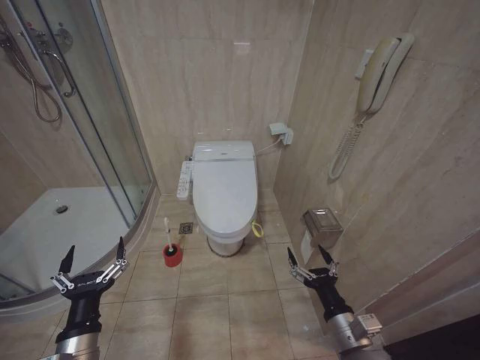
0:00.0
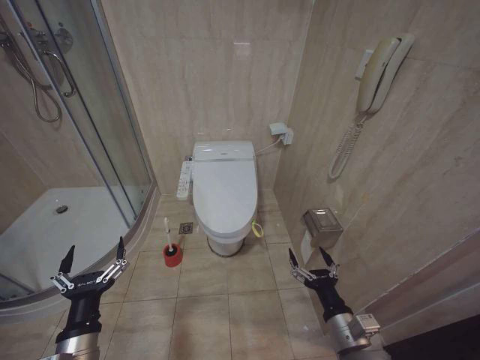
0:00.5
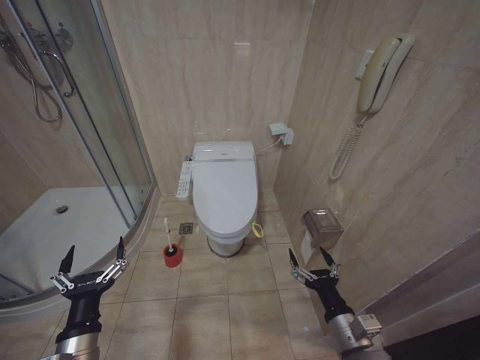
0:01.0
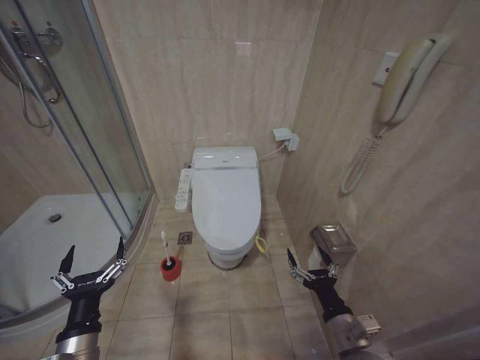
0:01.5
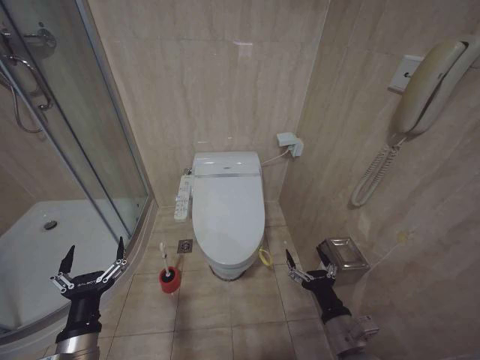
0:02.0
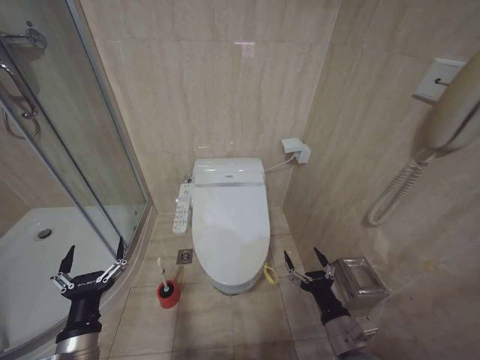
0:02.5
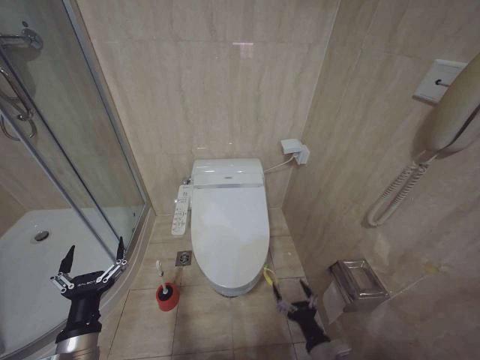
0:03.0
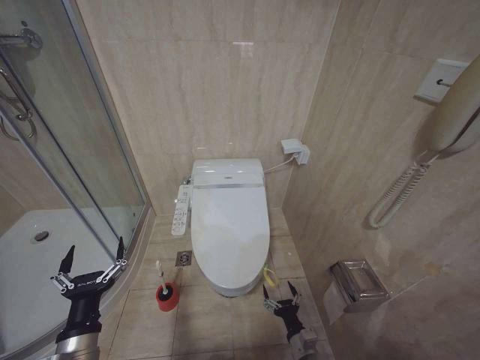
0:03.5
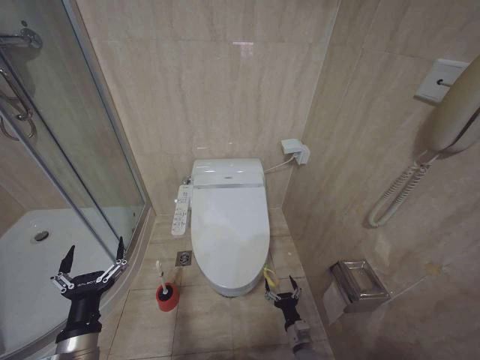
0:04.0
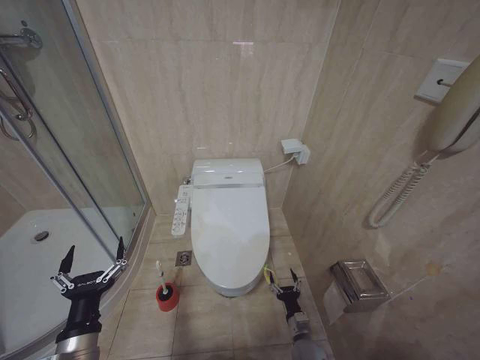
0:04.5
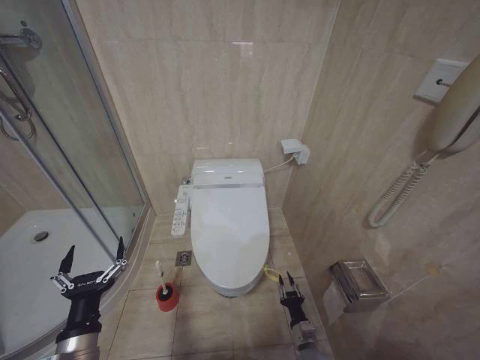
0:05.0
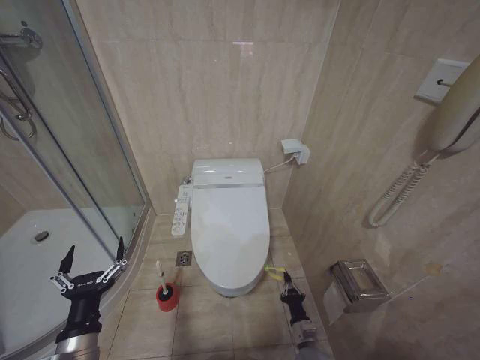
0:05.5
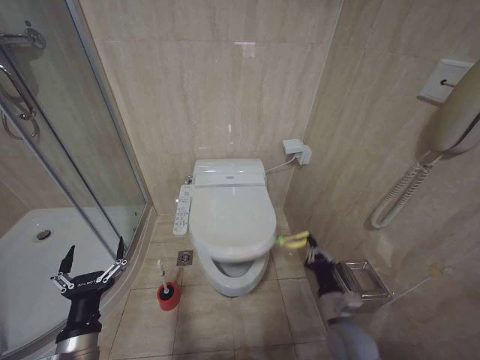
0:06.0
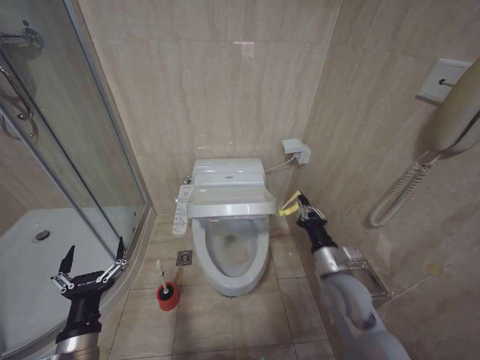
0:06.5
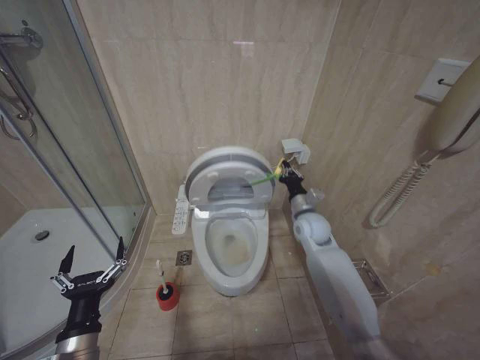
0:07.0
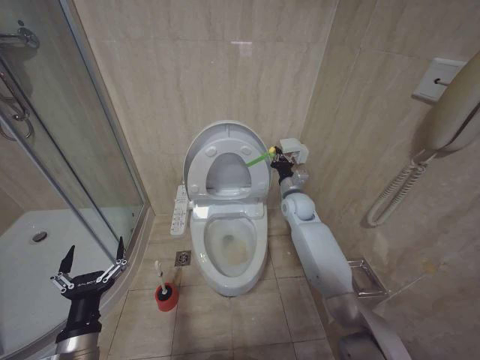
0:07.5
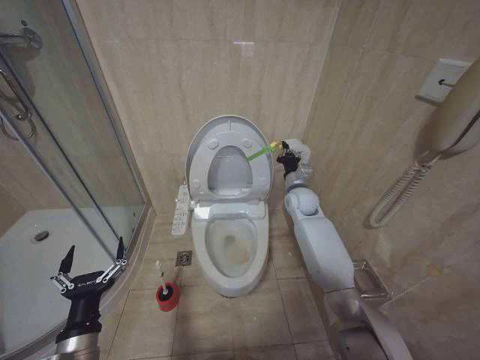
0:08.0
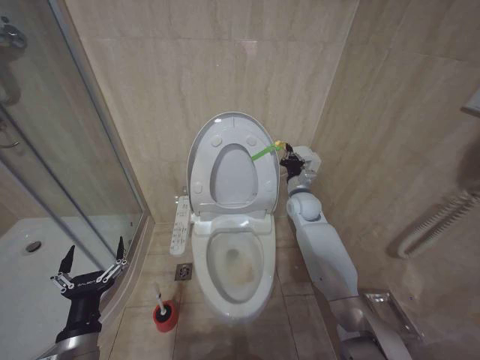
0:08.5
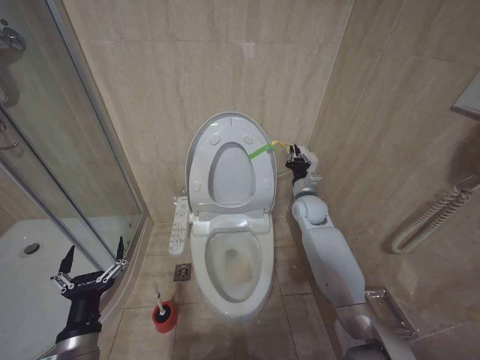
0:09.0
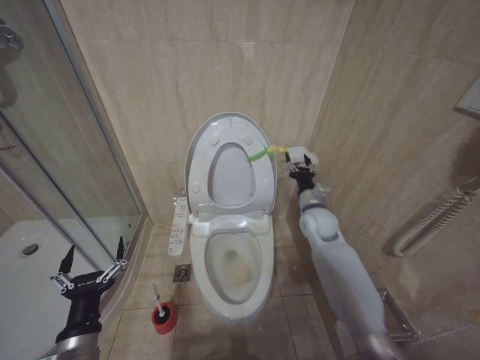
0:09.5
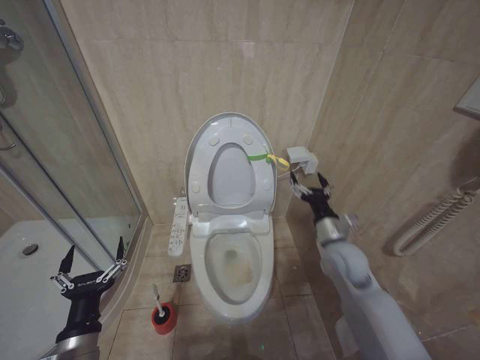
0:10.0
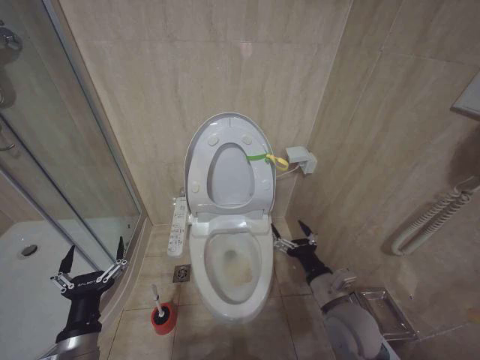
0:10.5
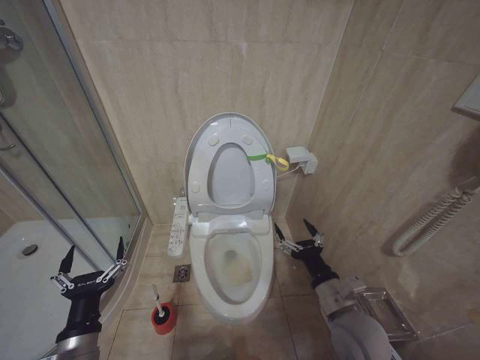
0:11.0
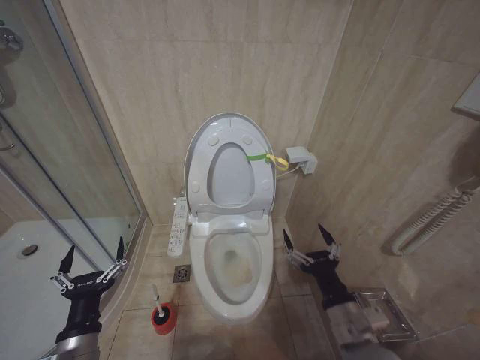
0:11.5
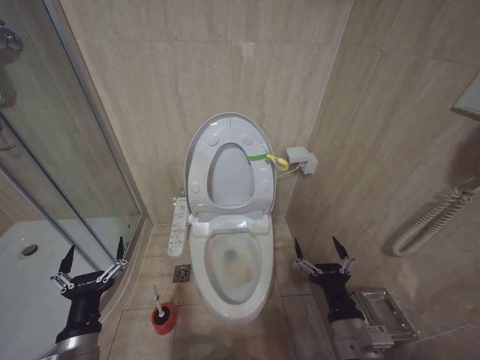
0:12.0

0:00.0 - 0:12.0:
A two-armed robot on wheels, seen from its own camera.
Task of the whole recording: Open the toilet lid, clean the toilet bowl with a toilet brush, close the toilet lid, and flush.
0:02.0 - 0:04.0: The right gripper shifts about 25 cm downward.
0:04.0 - 0:06.0: The right gripper moves upward, about 15 cm, and closes up.
0:06.0 - 0:08.0: The right gripper shifts roughly 40 cm forward and upward.
0:08.0 - 0:10.0: The right gripper goes about 15 cm backward, and opens.
0:10.0 - 0:12.0: The right gripper travels backward by about 25 cm.

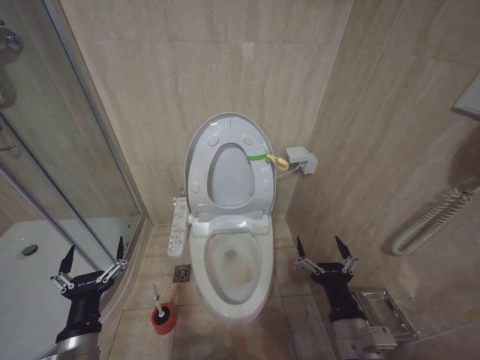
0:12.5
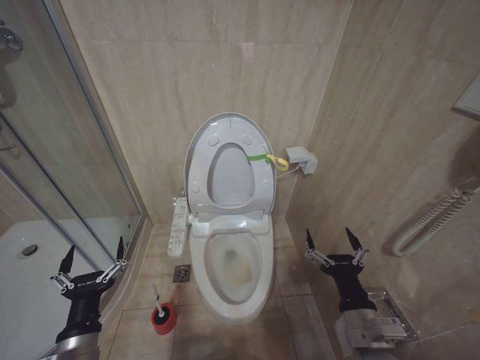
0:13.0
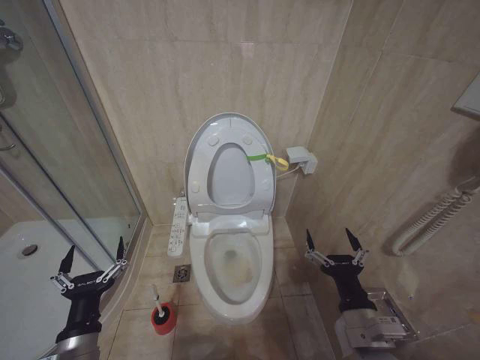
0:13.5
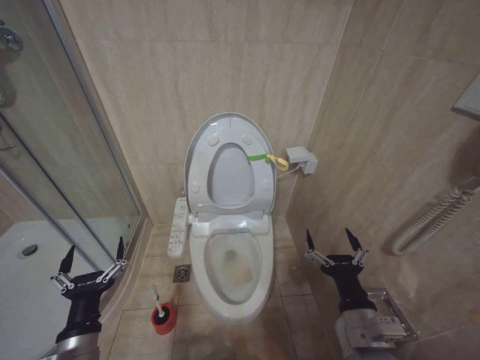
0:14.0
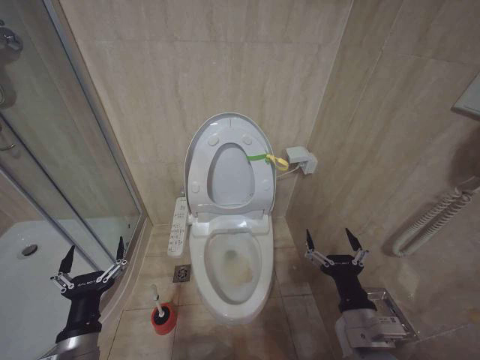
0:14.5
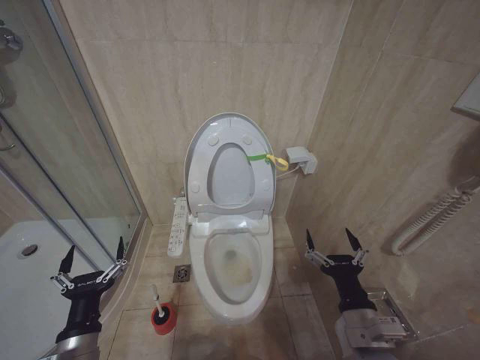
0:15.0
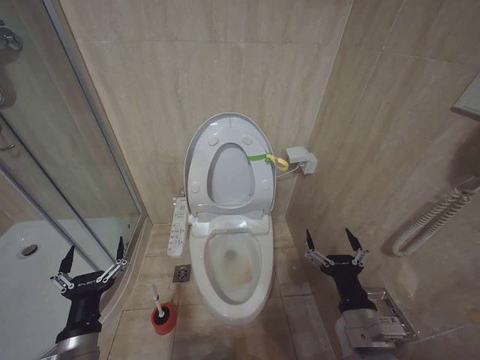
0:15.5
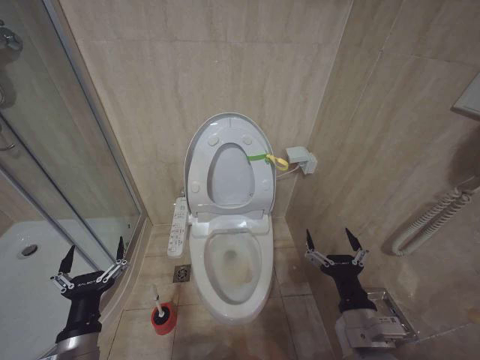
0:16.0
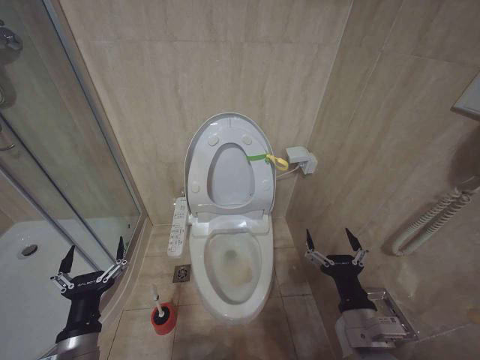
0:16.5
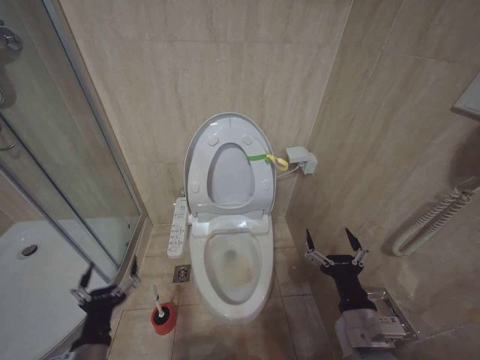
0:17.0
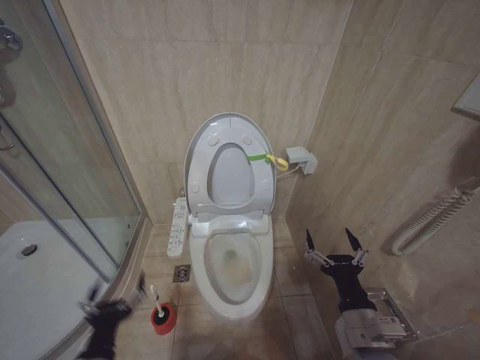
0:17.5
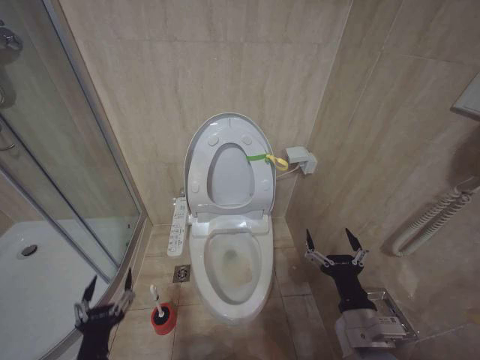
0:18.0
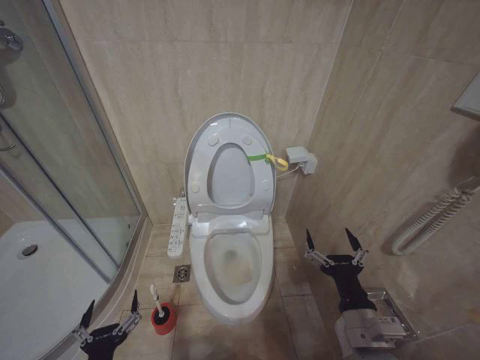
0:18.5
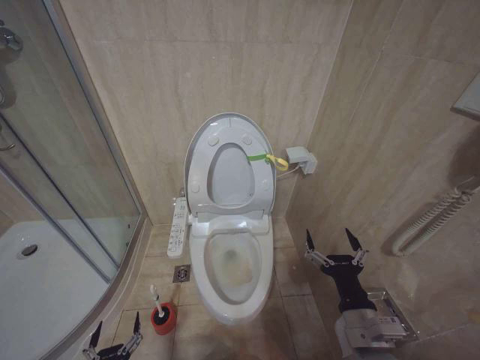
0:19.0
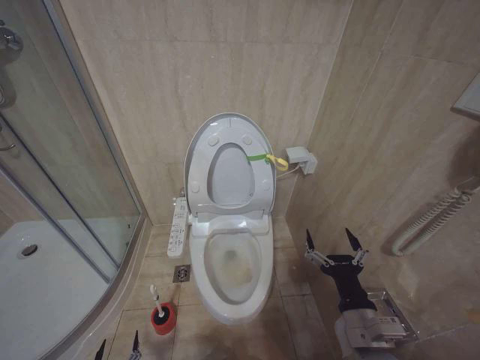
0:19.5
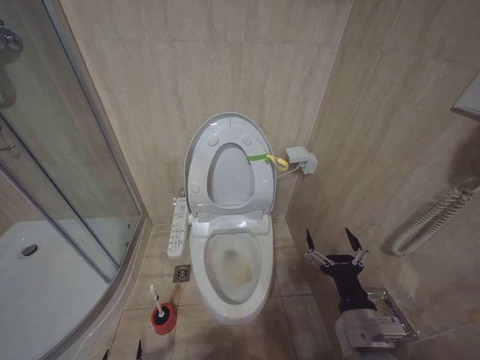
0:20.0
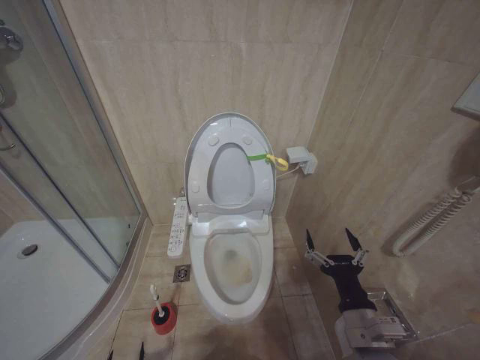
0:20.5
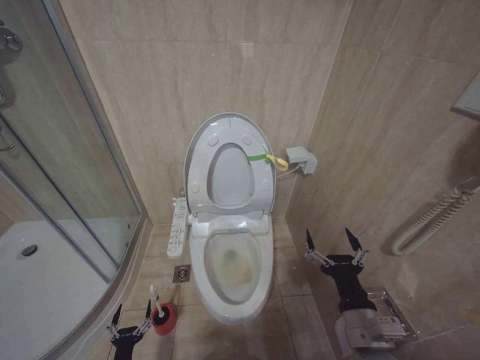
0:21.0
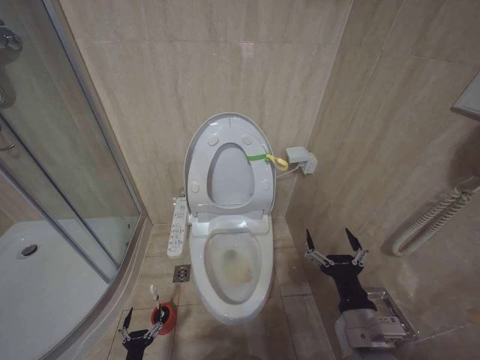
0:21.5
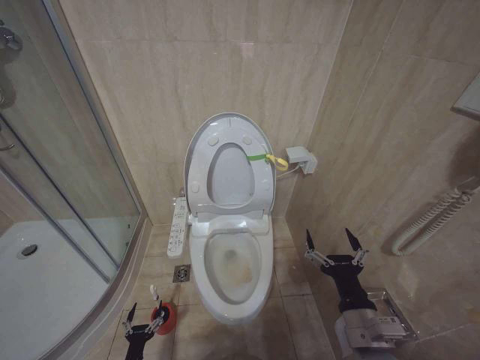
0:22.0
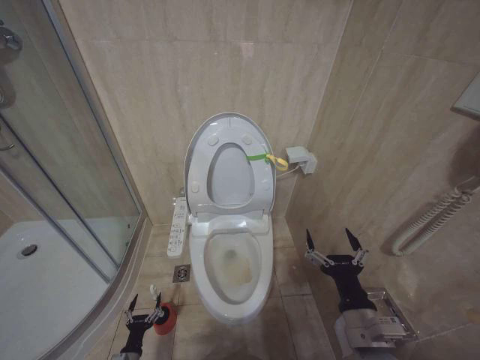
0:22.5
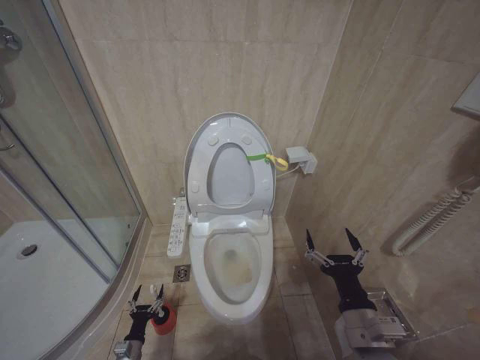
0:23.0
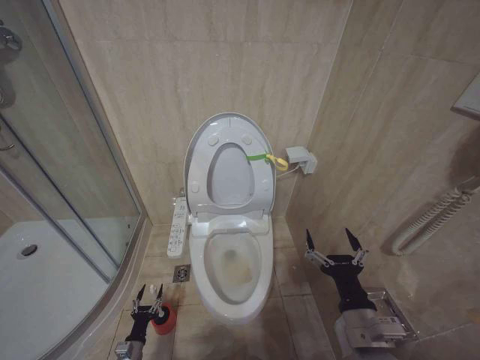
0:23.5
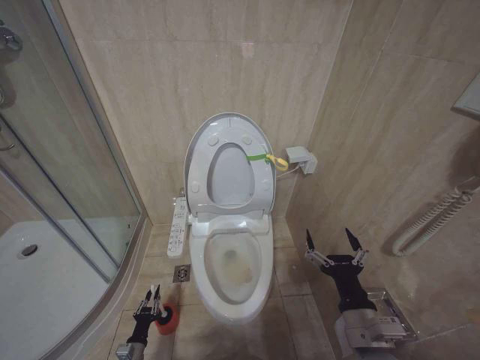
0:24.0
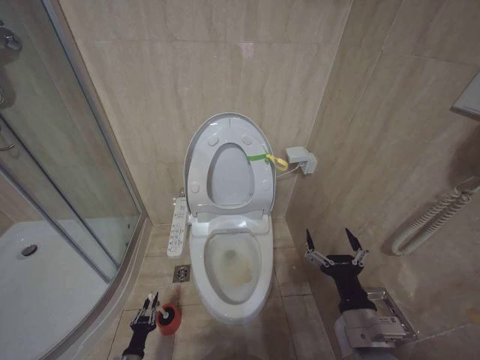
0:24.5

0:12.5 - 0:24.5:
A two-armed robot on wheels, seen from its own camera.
Task of the whole recording: Open the toilet lid, clean the toilet bowl with a toilet brush, close the toilet lid, and flush.
0:12.5 - 0:14.5: The grippers make only small movements.
0:14.5 - 0:16.5: Both grippers stay put.
0:16.5 - 0:18.5: The left gripper shifts roughly 10 cm downward and backward.
0:18.5 - 0:20.5: The left gripper moves downward, roughly 30 cm.
0:20.5 - 0:22.5: The left gripper moves forward, roughly 15 cm.
0:22.5 - 0:24.5: The left gripper closes up.

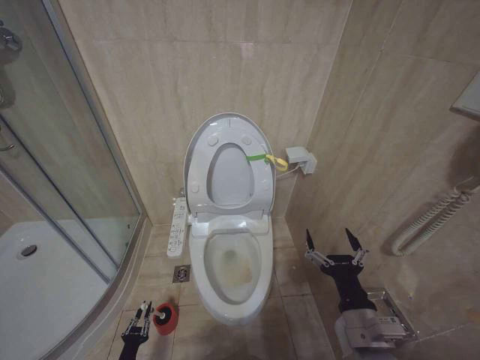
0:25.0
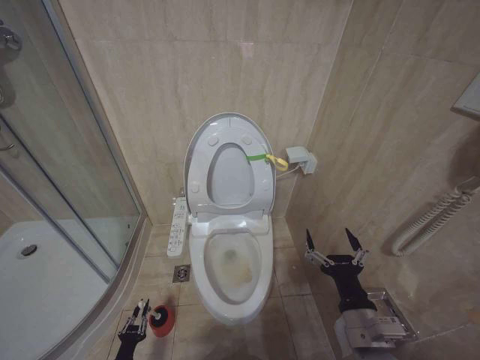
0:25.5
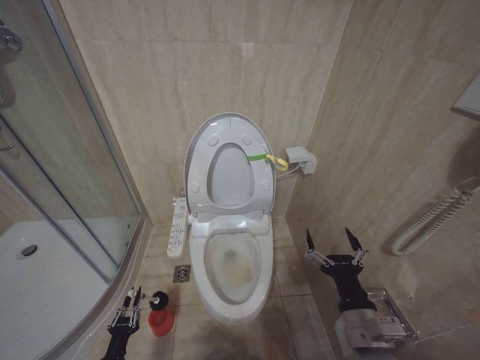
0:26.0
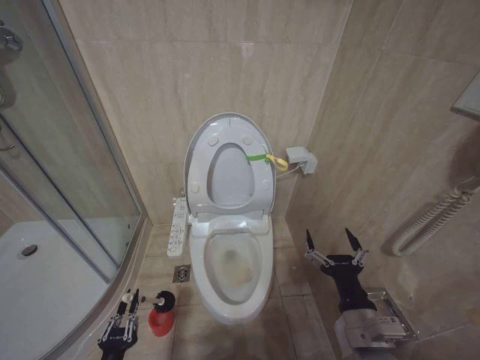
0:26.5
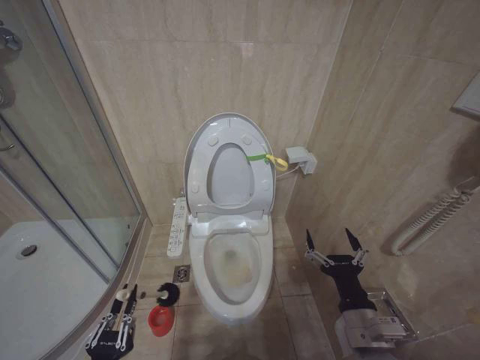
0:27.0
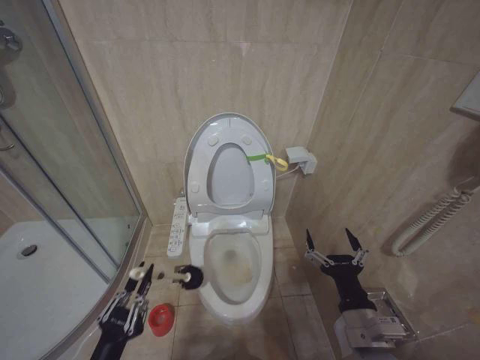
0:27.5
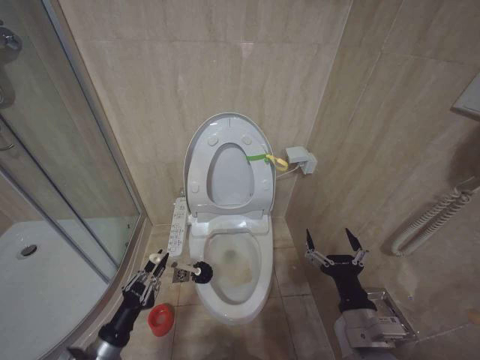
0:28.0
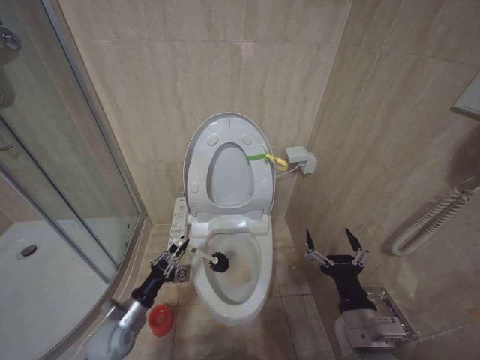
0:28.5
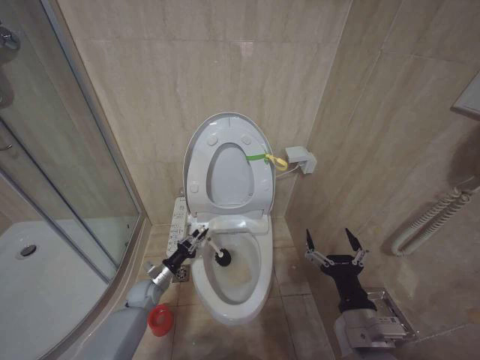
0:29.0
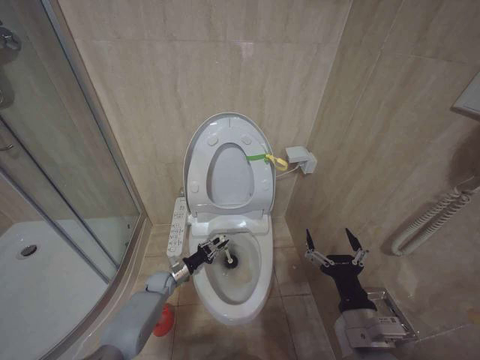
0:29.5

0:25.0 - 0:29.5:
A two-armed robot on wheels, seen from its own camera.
Task of the whole recording: Open the toilet lid, clean the toilet bowl with a toilet brush, close the toilet lid, and flush.
0:25.0 - 0:27.0: The left gripper heads upward, covering some 25 cm.
0:27.0 - 0:29.5: The left gripper is displaced forward by some 35 cm.
